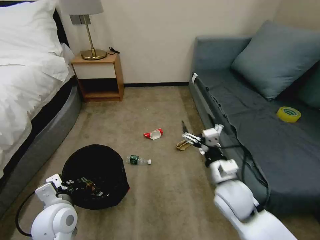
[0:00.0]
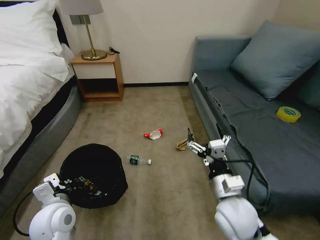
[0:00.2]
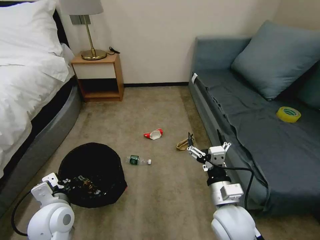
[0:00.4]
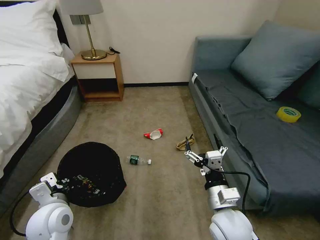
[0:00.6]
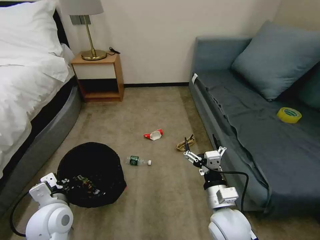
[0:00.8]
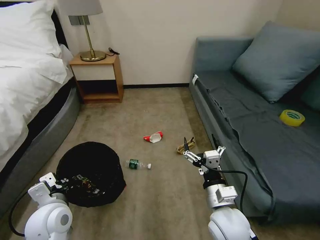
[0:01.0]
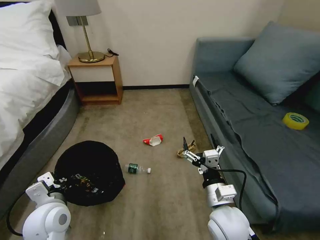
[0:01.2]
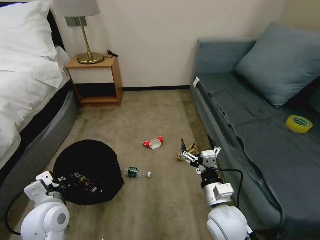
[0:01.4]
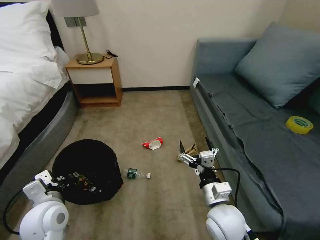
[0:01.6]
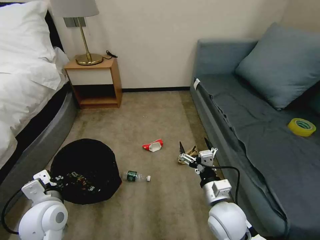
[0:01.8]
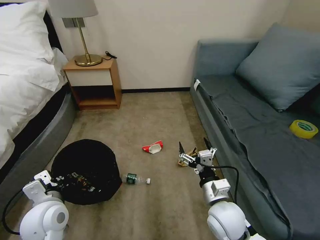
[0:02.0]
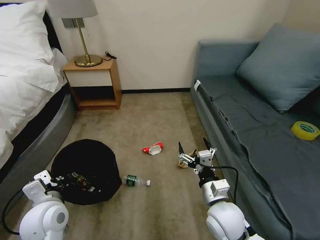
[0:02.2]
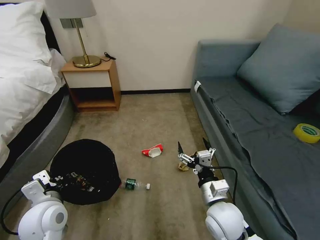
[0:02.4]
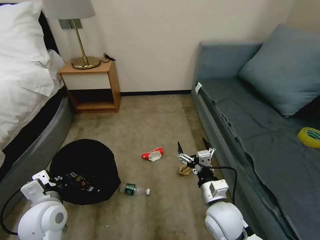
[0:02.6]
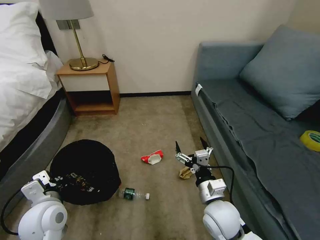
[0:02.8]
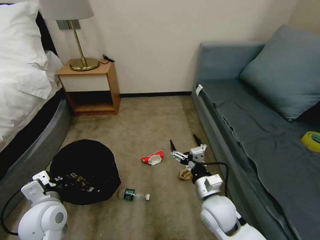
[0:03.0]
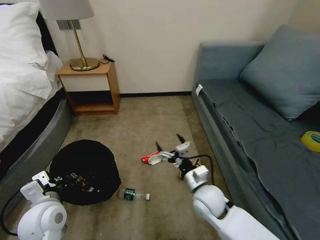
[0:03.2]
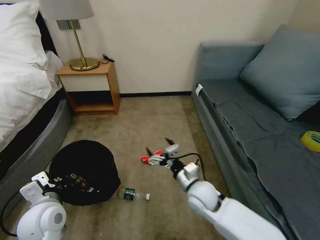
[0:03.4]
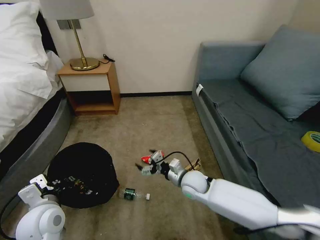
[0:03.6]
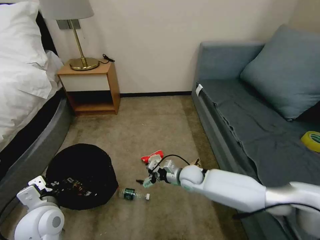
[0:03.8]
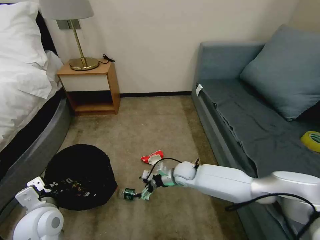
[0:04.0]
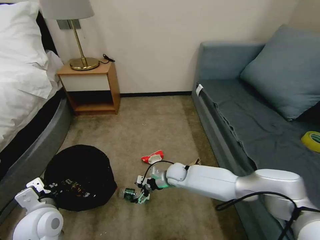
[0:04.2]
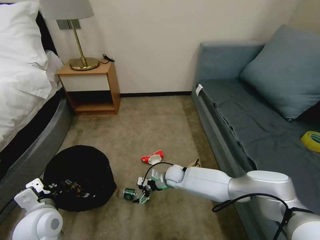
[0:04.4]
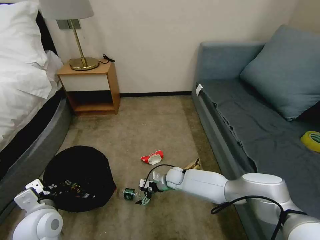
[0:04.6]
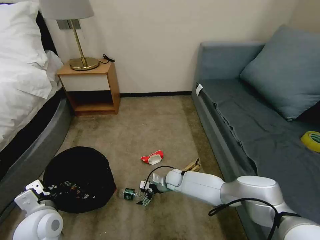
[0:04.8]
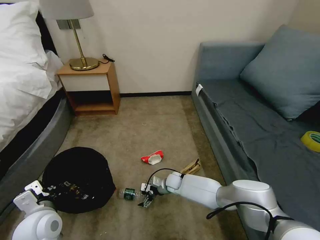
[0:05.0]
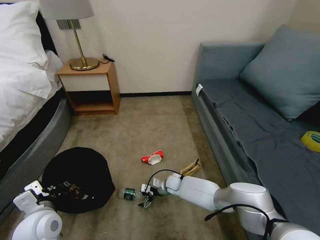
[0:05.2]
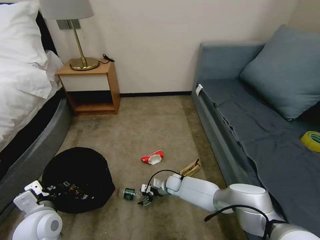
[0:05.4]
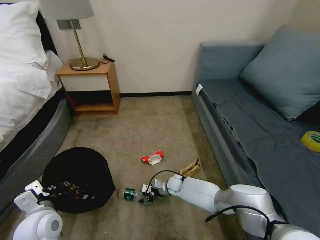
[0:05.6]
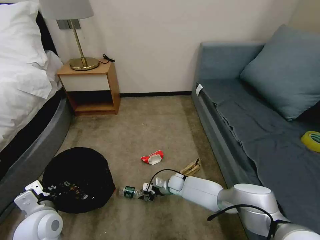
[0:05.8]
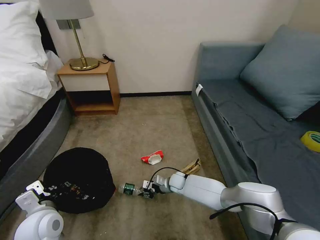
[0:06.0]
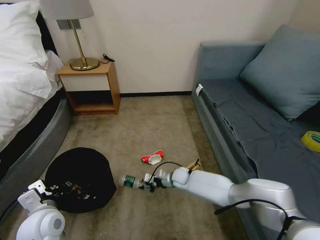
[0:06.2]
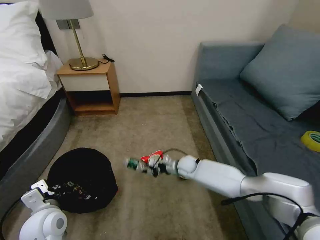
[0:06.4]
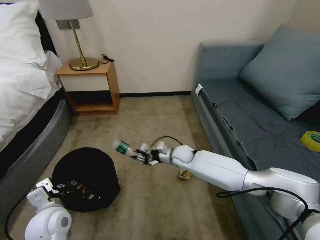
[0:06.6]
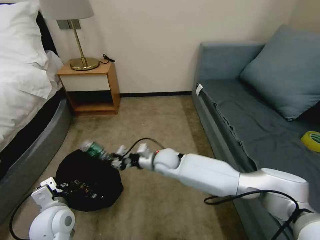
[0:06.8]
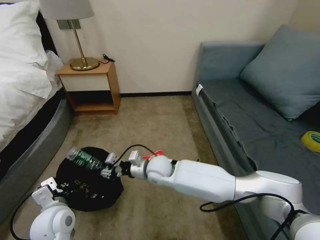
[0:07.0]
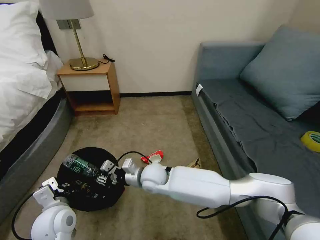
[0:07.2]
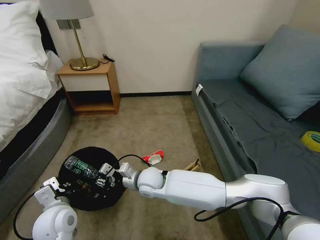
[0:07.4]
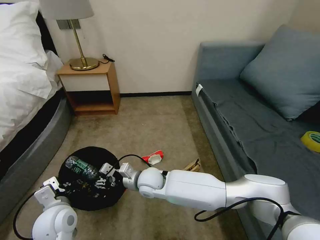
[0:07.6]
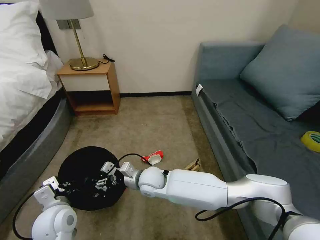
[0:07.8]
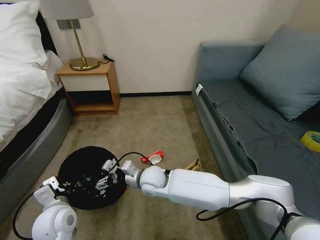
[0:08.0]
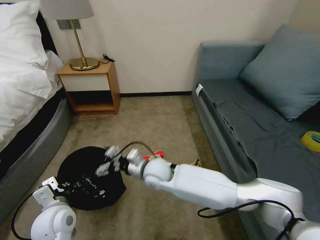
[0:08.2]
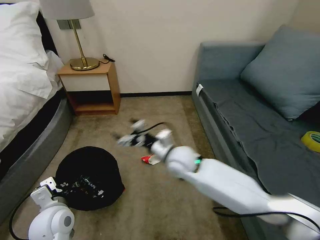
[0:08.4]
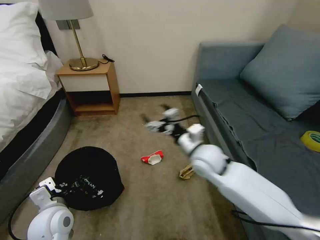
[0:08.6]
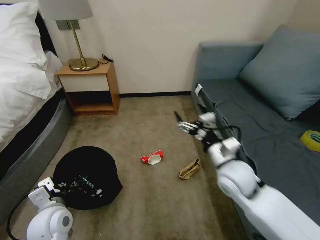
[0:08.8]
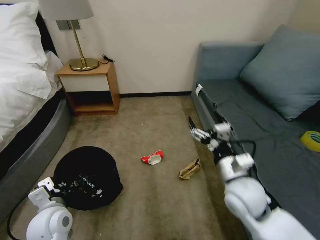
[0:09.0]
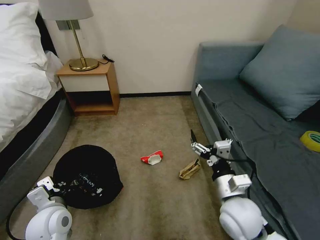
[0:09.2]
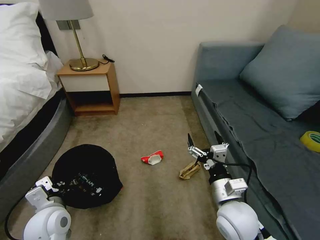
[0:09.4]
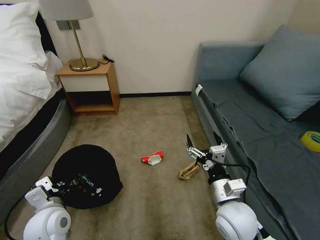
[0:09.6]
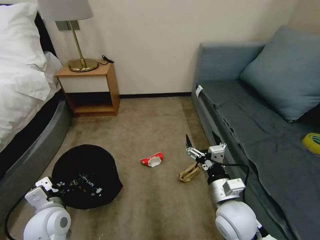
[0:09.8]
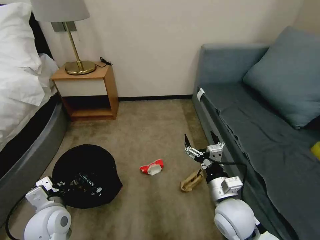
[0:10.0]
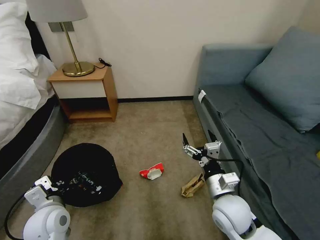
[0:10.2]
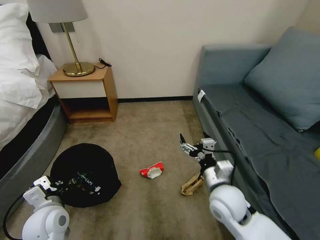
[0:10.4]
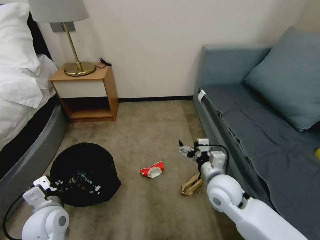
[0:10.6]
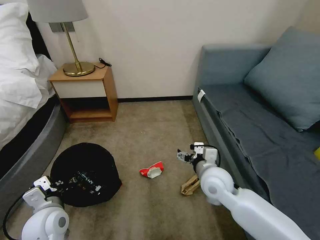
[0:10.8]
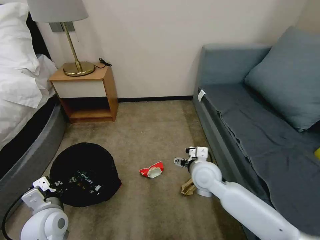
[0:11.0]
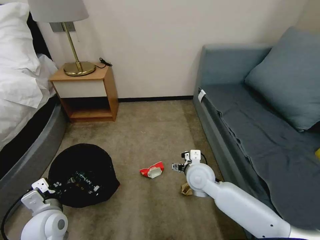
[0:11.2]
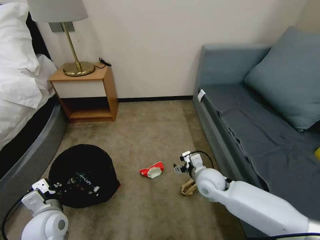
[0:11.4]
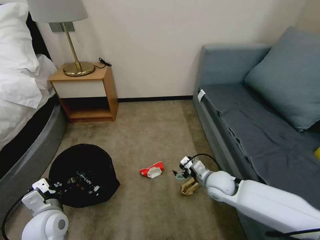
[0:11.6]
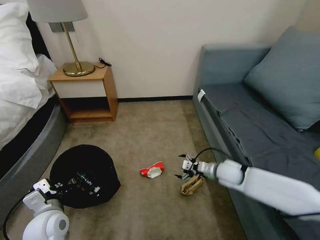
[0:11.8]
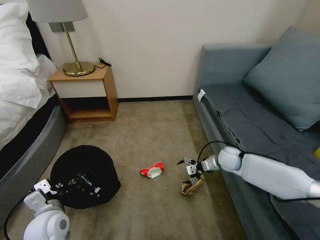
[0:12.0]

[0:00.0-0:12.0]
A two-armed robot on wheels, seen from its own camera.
Task of the whole recording: Pick up the trash bin, then pick up the garbage on the floor and place it into the trash bin.
0:00.0 to 0:01.6: The right gripper ends up about 5 cm from where it was.
0:03.0 to 0:04.4: The right gripper moves forward, downward and to the left, approximately 25 cm.
0:04.4 to 0:06.0: The right gripper shifts some 5 cm downward, and closes its fingers.
0:06.0 to 0:07.6: The right gripper moves upward, to the left and backward, about 25 cm.
0:07.6 to 0:09.0: The right gripper moves to the right and backward, about 25 cm, and opens up.
0:10.4 to 0:12.0: The right gripper shifts approximately 25 cm forward, to the right and downward.

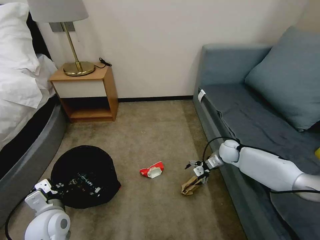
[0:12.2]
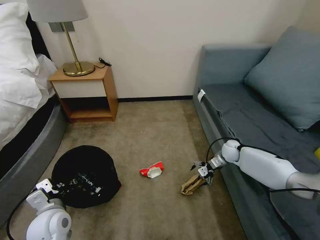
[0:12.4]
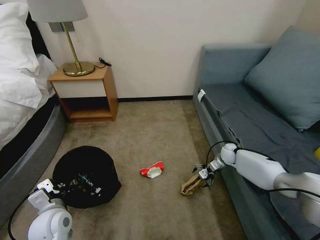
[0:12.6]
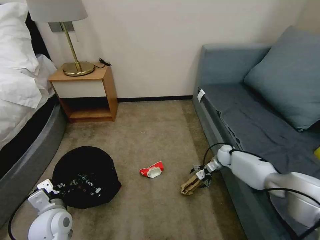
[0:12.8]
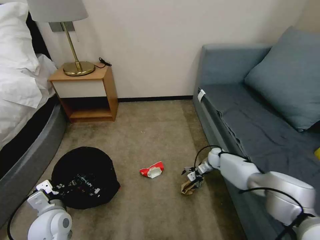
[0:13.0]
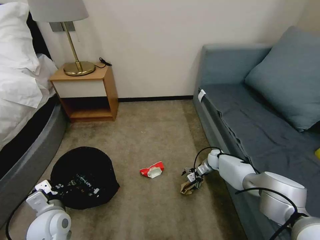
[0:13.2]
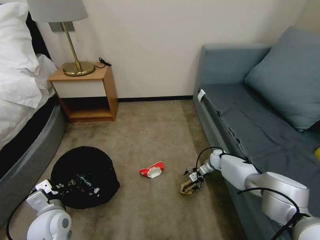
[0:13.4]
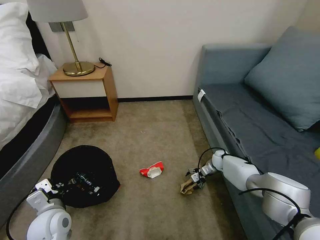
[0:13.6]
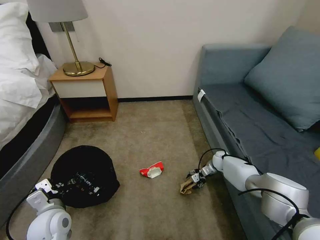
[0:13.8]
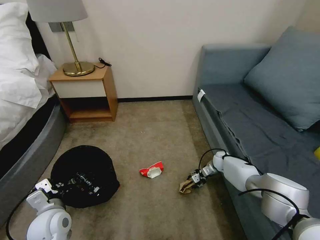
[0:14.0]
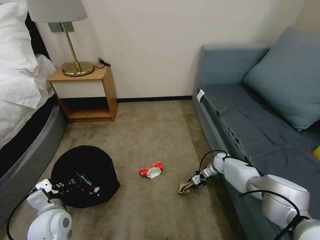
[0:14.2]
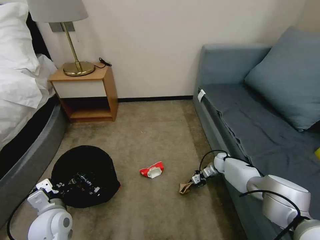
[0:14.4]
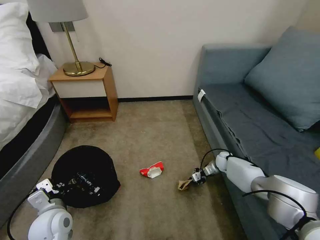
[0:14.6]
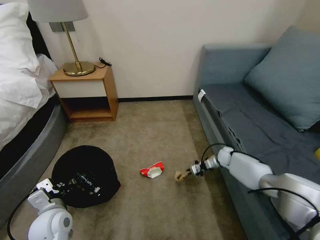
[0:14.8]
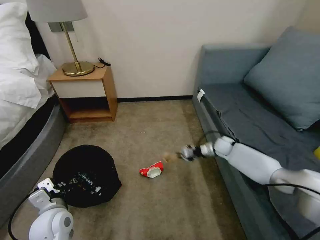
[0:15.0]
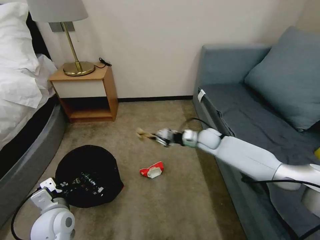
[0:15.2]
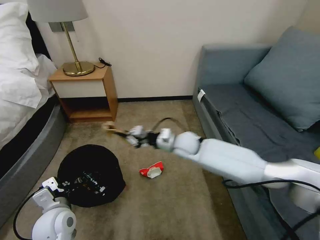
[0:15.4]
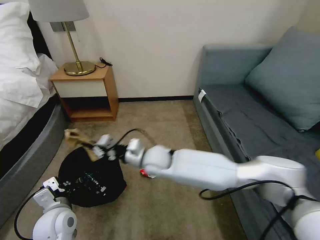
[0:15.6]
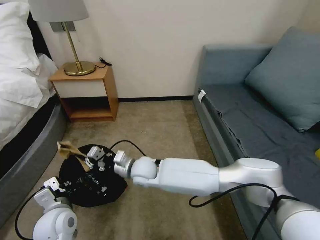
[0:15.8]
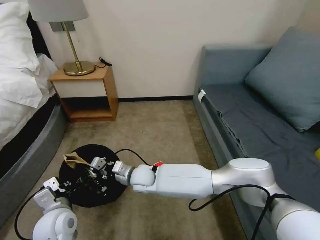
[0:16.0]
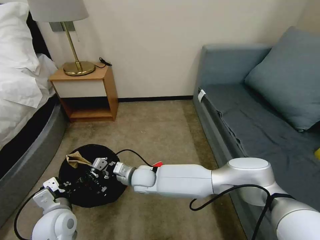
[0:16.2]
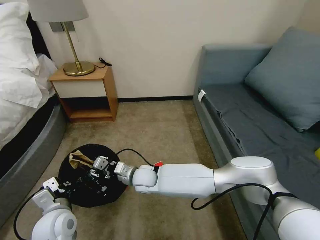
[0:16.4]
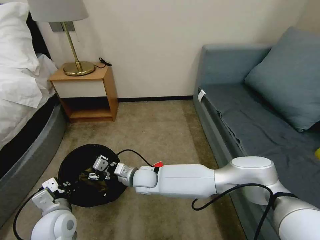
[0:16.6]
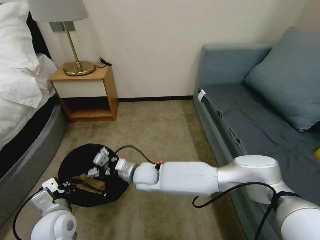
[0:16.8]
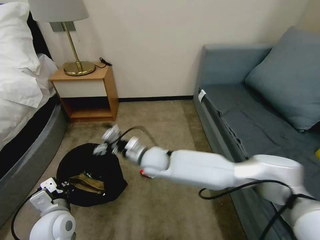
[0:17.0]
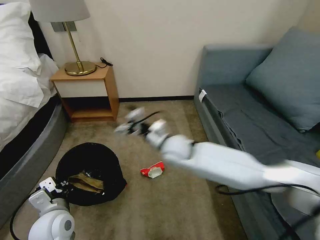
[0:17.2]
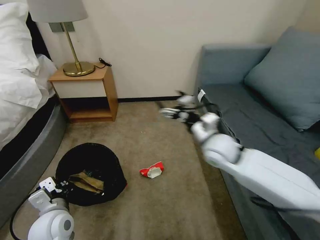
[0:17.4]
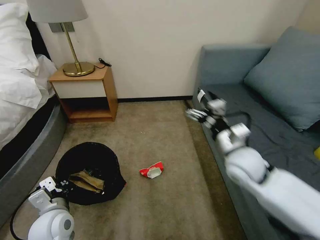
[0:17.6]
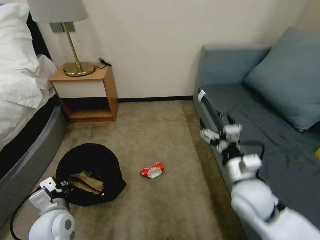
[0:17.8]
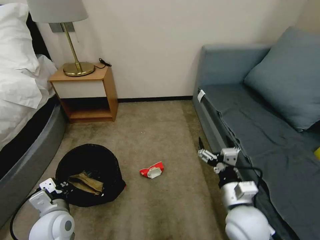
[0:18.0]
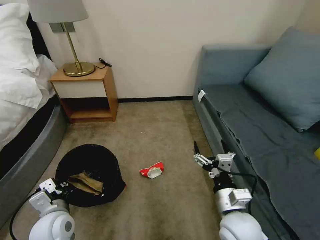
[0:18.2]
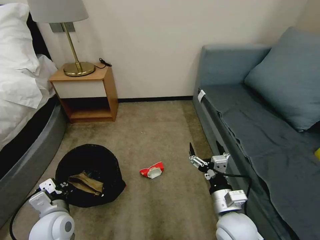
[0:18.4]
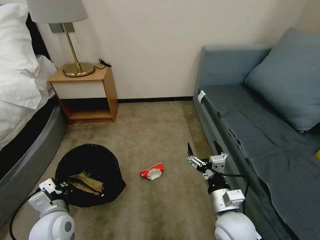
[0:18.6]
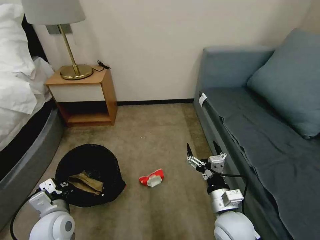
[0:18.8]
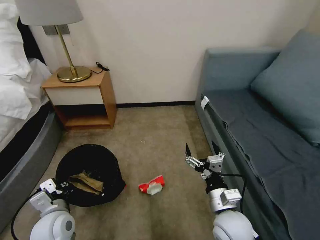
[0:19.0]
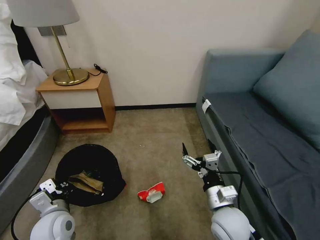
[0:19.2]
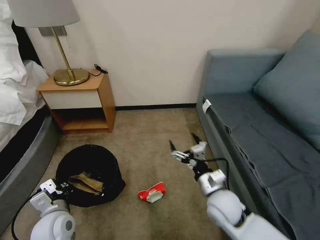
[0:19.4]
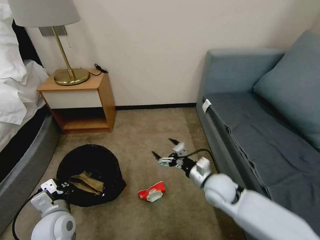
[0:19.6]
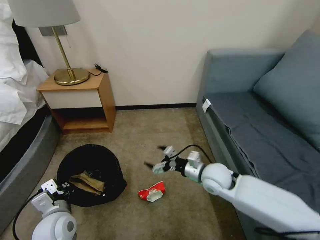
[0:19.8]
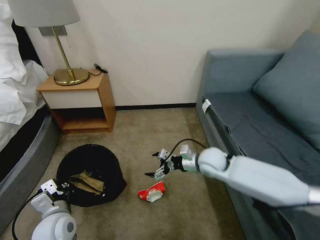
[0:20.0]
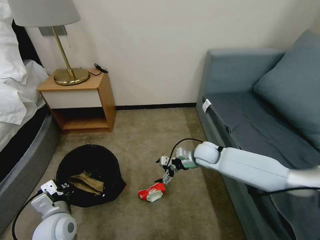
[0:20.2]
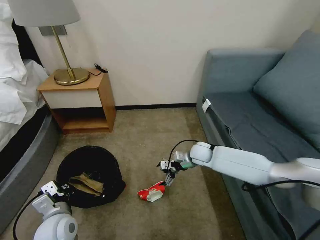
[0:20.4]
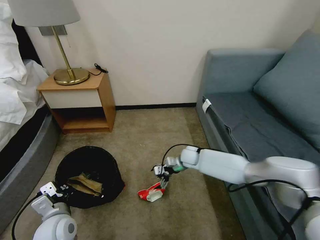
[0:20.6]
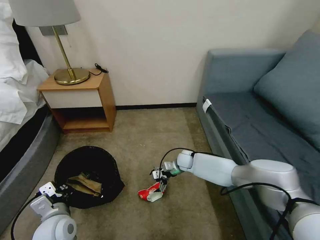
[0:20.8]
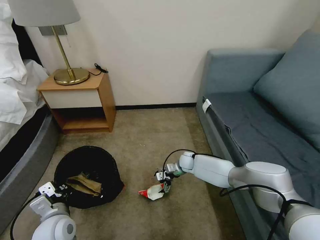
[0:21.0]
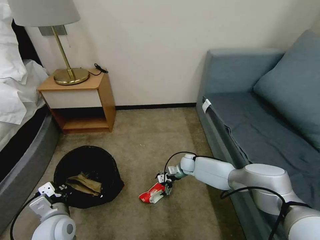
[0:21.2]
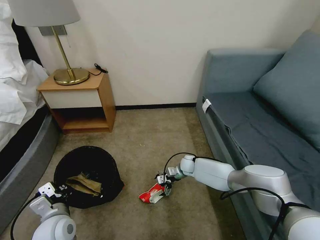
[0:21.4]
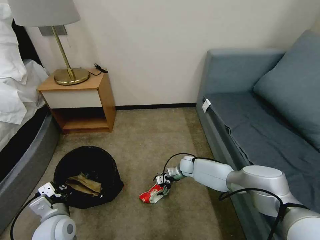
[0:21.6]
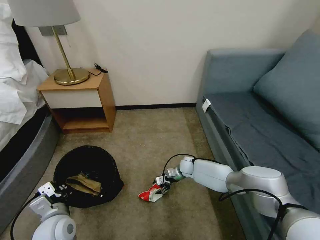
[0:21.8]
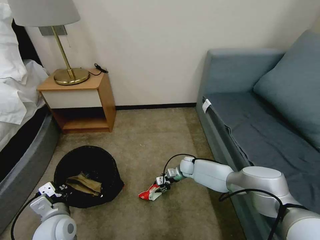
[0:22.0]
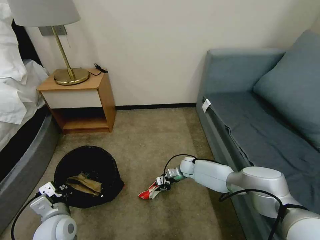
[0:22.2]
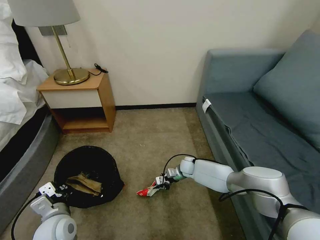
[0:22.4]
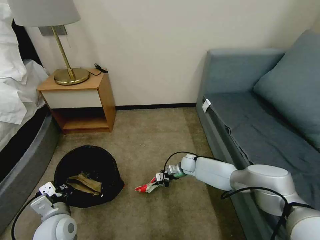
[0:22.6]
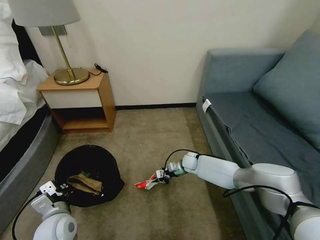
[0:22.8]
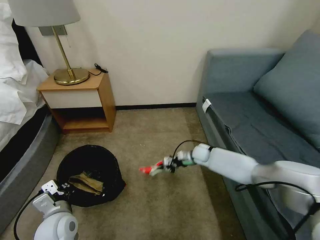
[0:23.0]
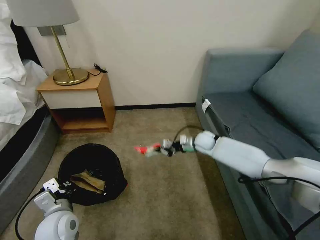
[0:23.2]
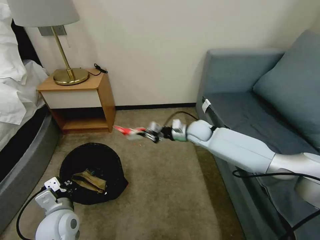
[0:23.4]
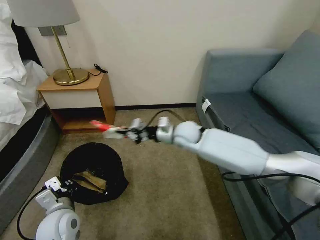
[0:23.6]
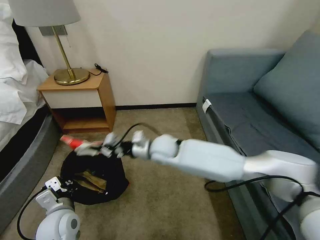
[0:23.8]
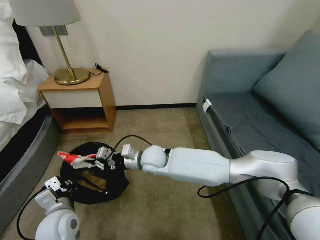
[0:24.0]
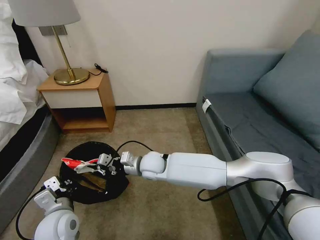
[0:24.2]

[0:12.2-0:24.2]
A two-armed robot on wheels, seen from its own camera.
Task of the whole recording: Pick up the trash bin, then pick up the garbage on the floor and place it into the trash bin.
0:12.2 to 0:13.8: The right gripper is displaced downward by approximately 10 cm.
0:13.8 to 0:15.2: The right gripper shifts some 20 cm upward and to the left, and closes.
0:15.2 to 0:16.6: The right gripper heads to the left and backward, covering about 30 cm, and opens up.
0:16.6 to 0:18.2: The right gripper shifts roughly 30 cm to the right and backward, and opens up.
0:18.2 to 0:19.8: The right gripper is displaced forward by approximately 15 cm.
0:19.8 to 0:21.2: The right gripper goes roughly 25 cm forward and downward.
0:21.2 to 0:22.6: The right gripper closes.
0:22.6 to 0:24.2: The right gripper shifts approximately 25 cm to the left, upward and backward.
